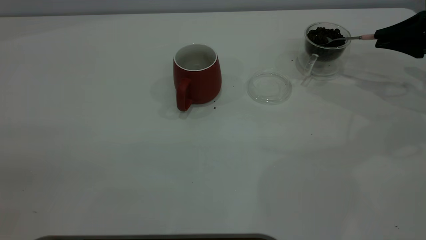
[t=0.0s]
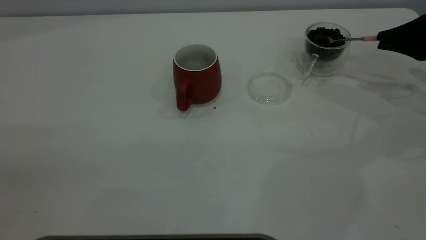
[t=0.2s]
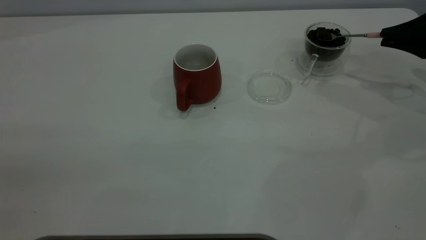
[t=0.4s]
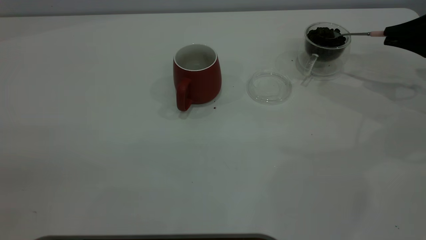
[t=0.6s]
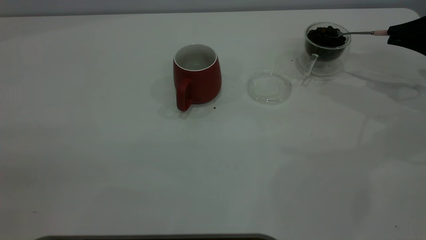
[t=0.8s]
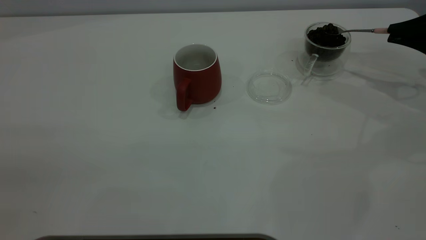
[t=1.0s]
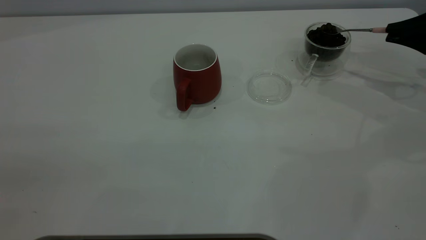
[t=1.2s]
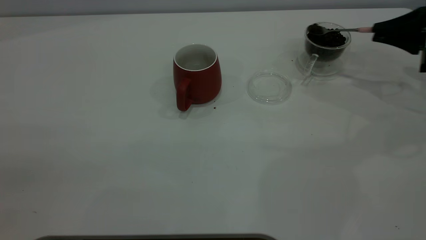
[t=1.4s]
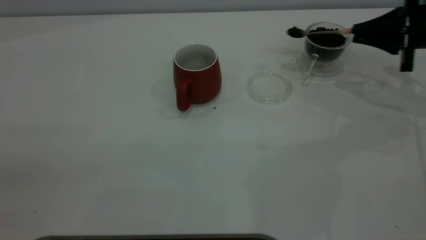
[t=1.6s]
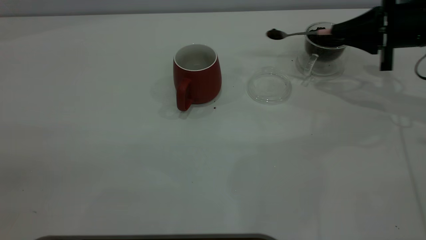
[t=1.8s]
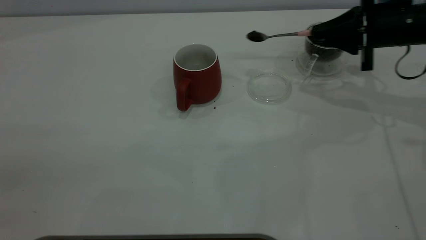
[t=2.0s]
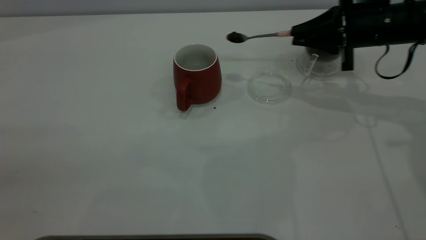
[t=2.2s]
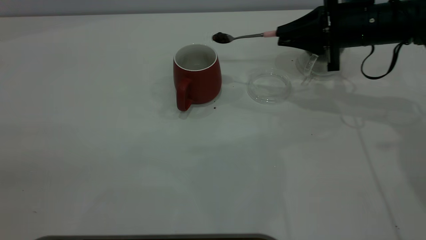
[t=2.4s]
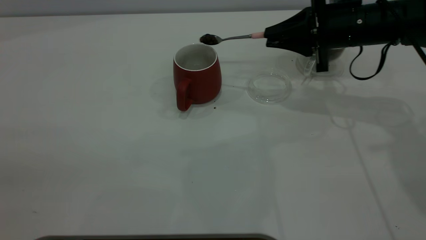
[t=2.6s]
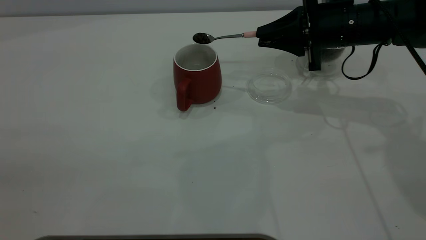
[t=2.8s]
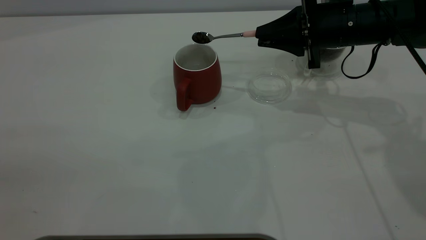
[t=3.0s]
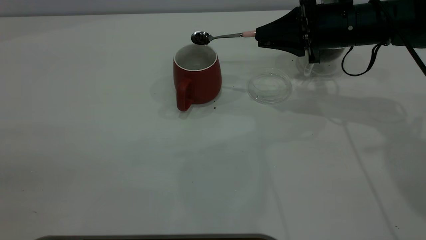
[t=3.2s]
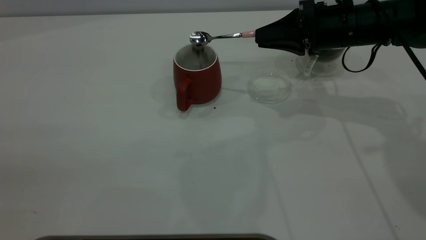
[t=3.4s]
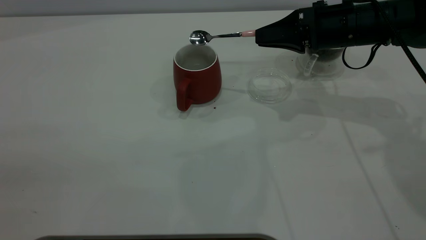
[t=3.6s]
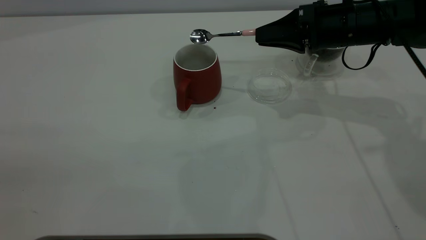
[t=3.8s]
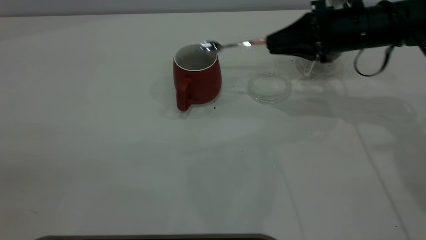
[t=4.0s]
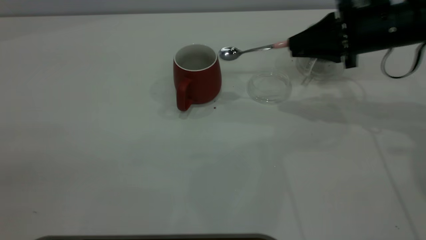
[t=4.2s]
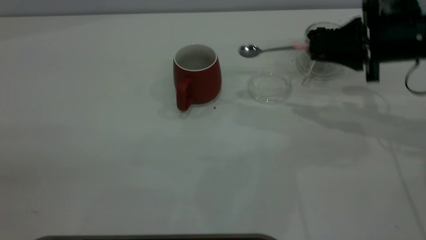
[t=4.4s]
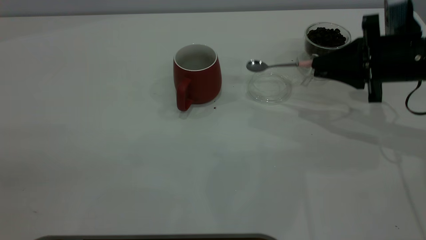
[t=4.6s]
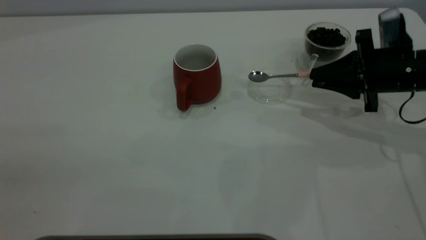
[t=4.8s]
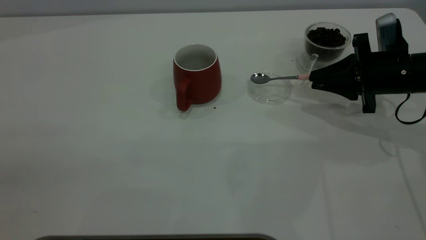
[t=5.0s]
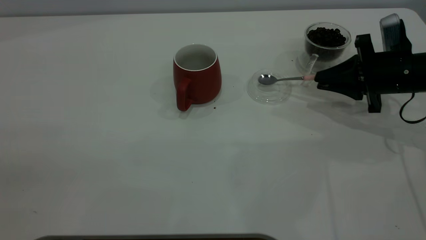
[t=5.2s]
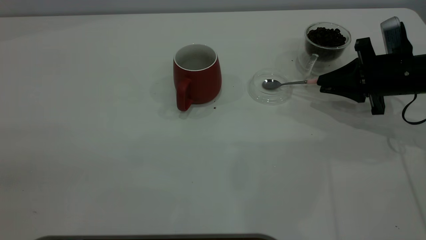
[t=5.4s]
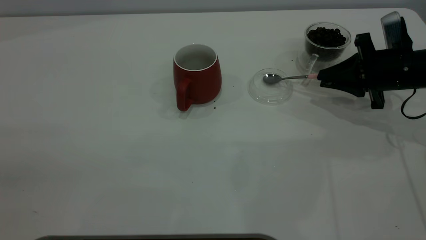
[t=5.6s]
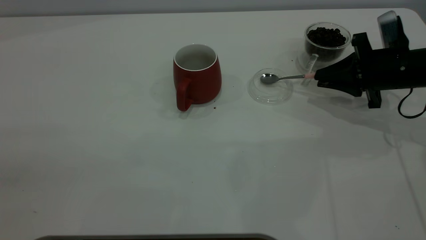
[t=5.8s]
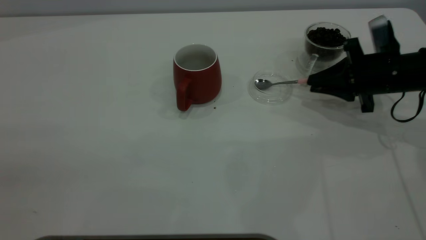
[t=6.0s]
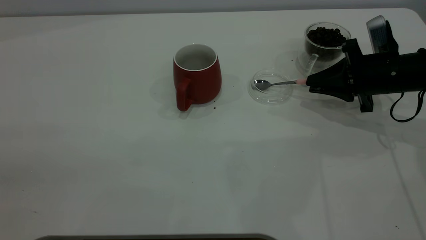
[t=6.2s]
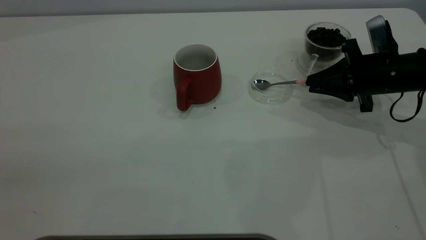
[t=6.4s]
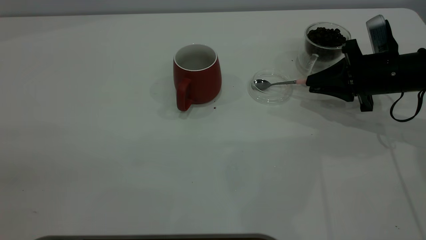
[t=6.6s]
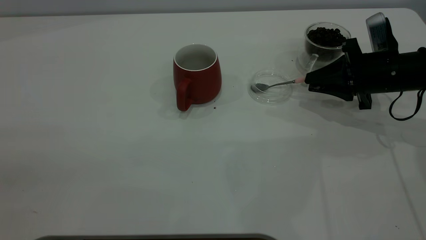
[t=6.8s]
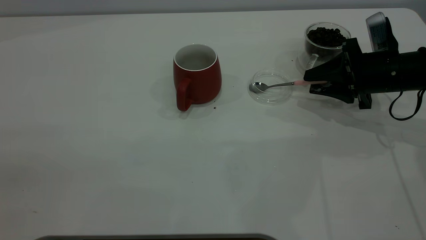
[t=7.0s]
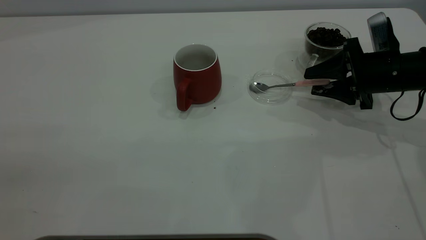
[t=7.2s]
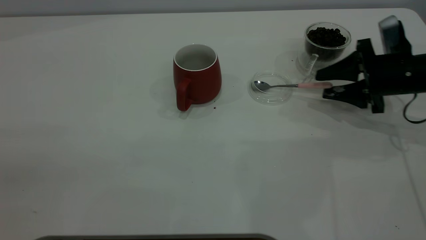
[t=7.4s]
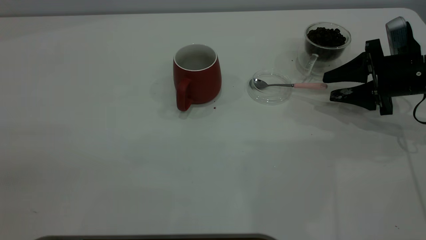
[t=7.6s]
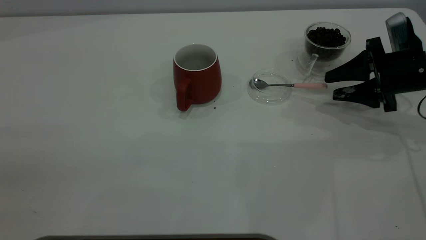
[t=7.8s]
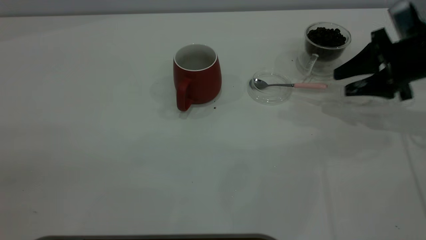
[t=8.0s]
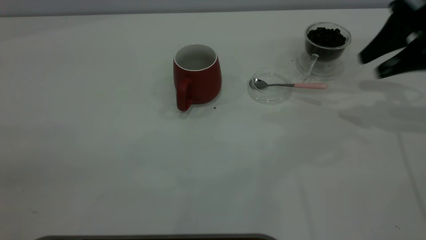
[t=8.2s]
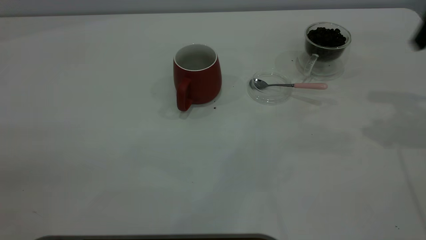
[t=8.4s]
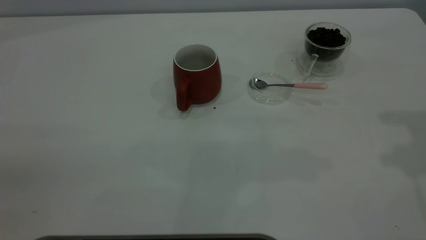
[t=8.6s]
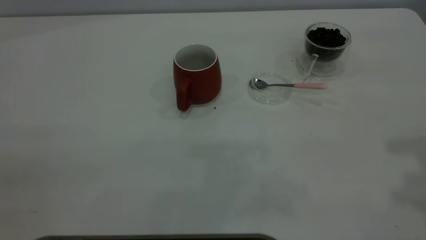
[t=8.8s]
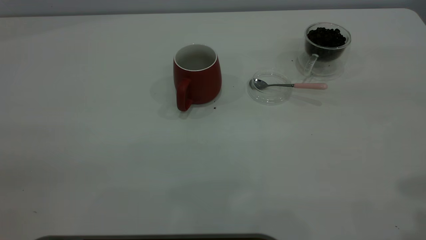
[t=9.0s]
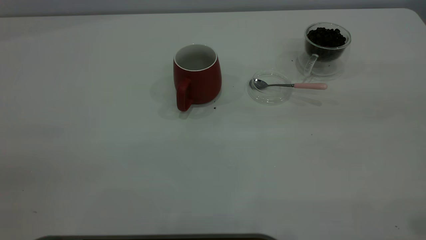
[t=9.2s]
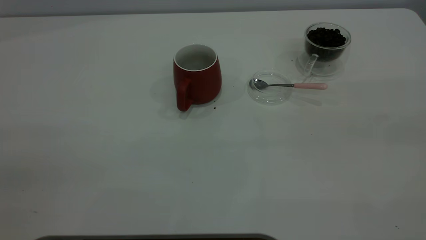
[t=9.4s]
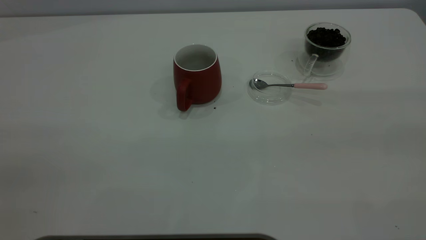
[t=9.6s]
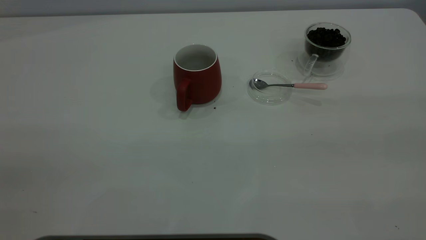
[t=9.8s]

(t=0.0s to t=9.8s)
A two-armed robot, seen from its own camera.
Task of the whole recording: the left gripper place the red cup in the center of the table, the right gripper take the pink spoon from the cup lid and scoop out the coffee beans from the coffee cup and put them into the red cup, the right gripper put the spoon back into the cup lid.
Step, t=0.0s - t=3.6s: Scoop a spoonful of beans into the cup.
Step, t=4.0s - t=8.0s: Place the spoon back in its original place.
t=0.0s - t=1.4s: There are only small adjustments of the grippers.
t=1.4s - t=2.8s: The right gripper heads to the left, covering roughly 15 cm.
t=2.8s - t=4.2s: The right gripper moves to the right, some 5 cm.
t=4.2s - t=5.6s: The right gripper goes approximately 5 cm downward.
t=5.6s - t=7.0s: The right gripper opens its fingers.
t=7.0s - t=8.4s: The right gripper goes some 20 cm upward.
